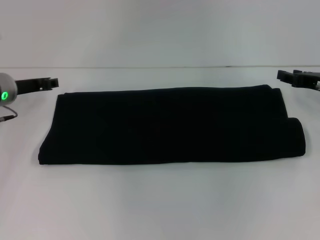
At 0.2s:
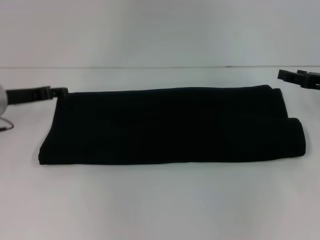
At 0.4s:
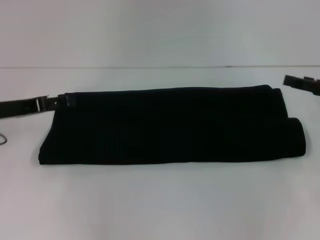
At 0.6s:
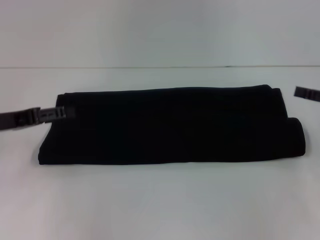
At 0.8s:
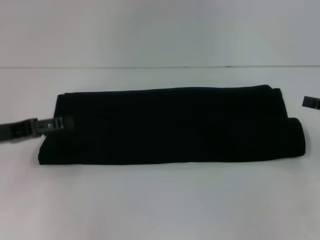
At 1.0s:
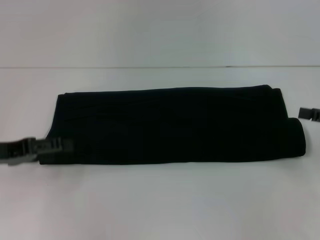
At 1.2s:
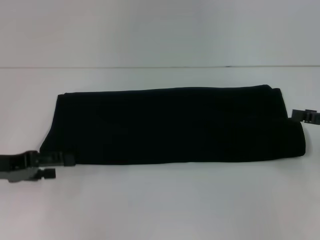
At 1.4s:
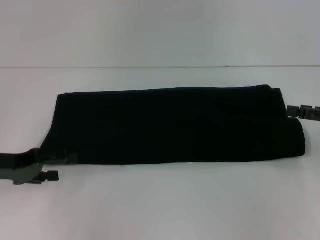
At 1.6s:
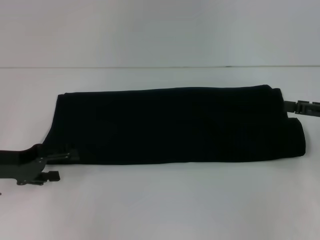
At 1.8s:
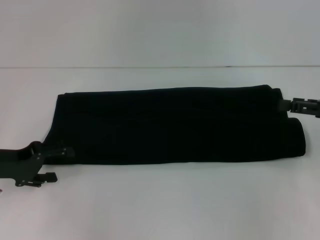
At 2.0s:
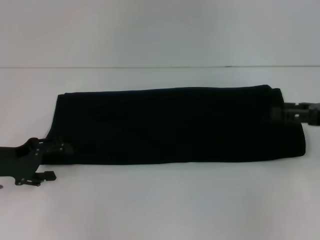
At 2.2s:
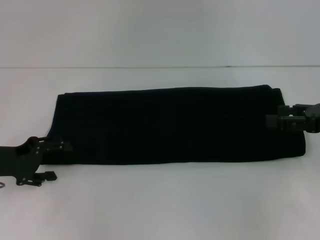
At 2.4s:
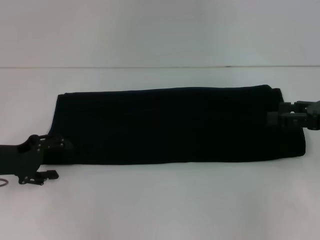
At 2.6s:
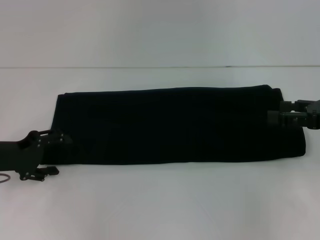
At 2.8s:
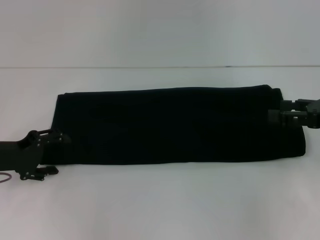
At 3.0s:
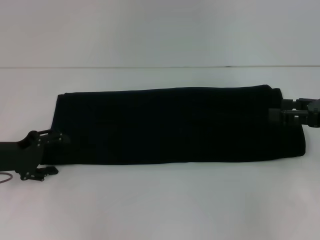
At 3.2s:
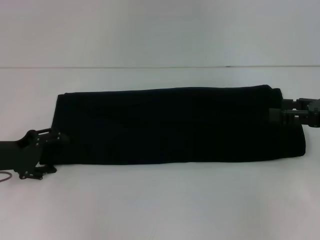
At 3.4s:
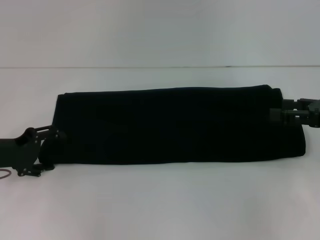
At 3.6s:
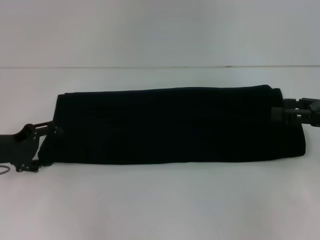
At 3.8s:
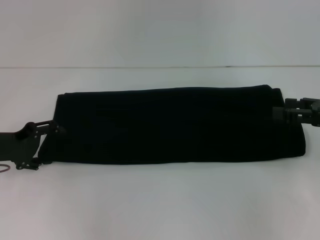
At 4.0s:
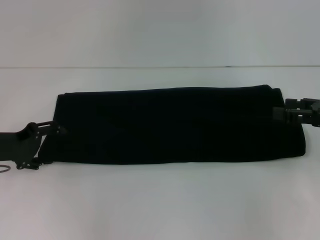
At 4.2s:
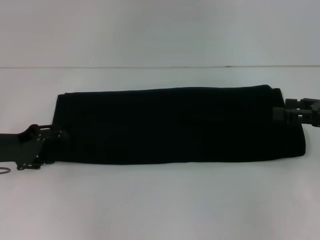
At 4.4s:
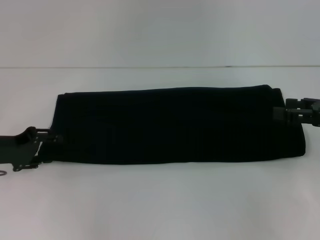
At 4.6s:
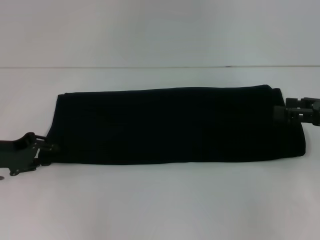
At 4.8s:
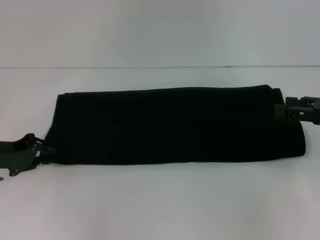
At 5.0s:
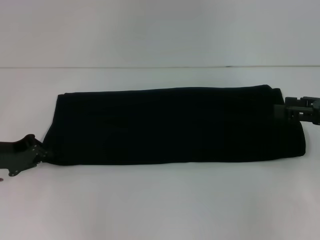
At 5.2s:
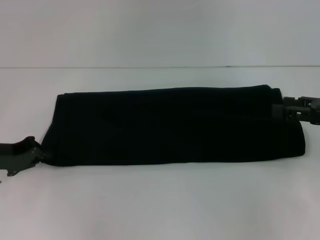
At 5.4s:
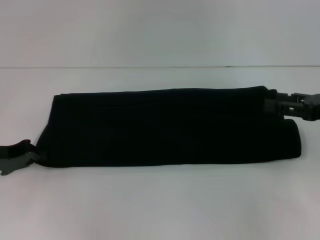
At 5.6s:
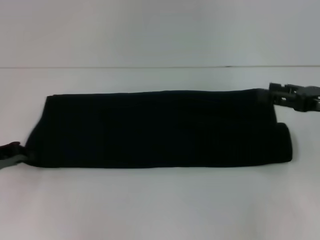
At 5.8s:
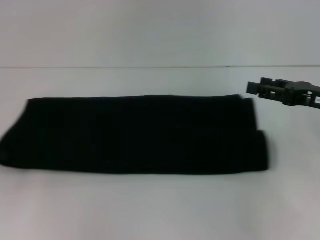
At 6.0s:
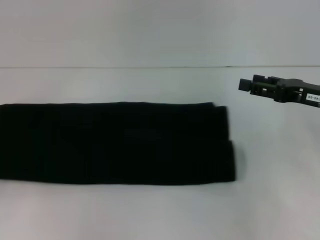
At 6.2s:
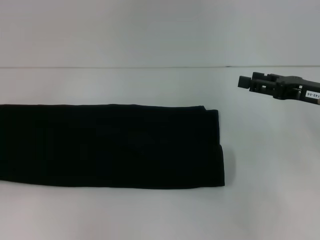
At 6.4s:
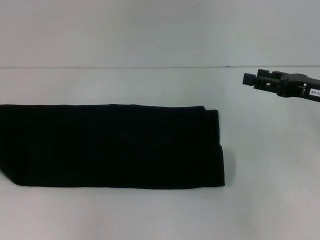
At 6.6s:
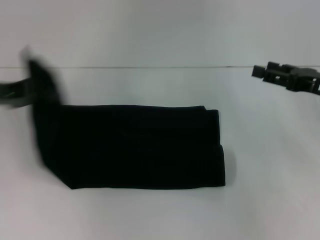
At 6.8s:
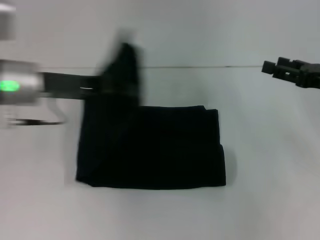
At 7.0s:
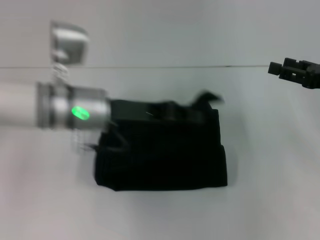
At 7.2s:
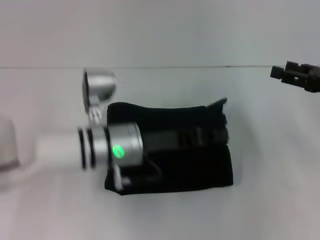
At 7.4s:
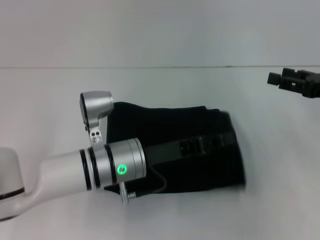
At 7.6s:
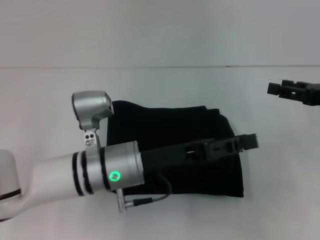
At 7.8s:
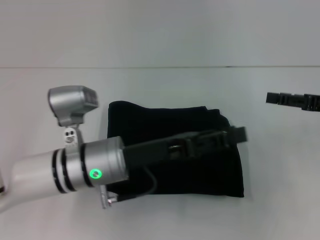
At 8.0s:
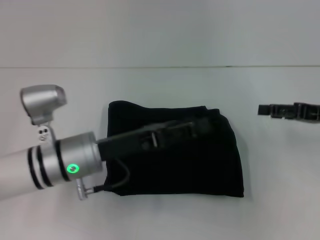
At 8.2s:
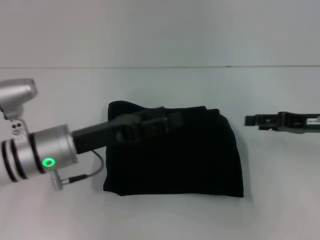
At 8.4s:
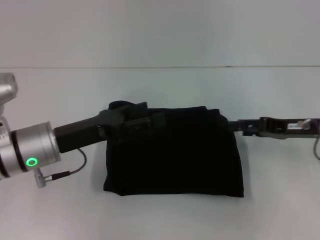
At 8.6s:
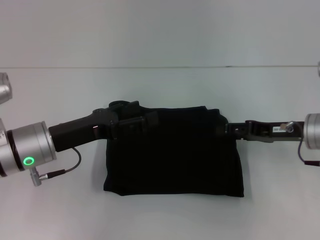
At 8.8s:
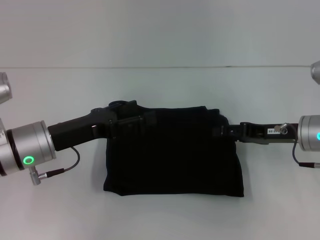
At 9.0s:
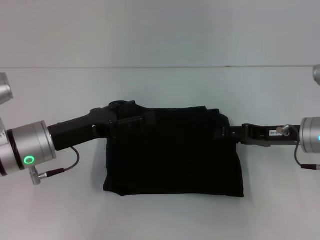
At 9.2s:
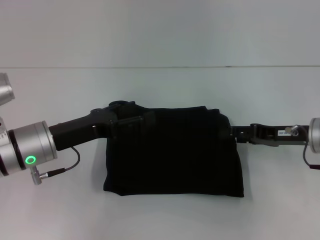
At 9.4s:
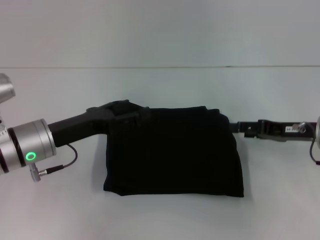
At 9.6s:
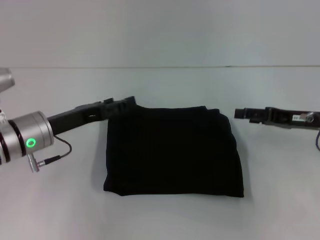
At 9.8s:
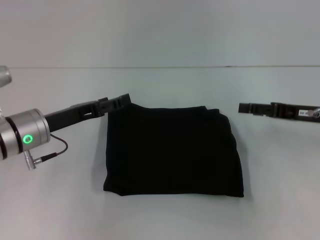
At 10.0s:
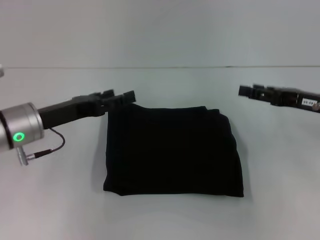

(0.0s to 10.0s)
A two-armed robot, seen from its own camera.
Step, 0.0s - 7.8s: Fold the clothes with your left hand.
0.0s - 1.4s: The right gripper moves backward, roughly 10 cm, and opens. Meanwhile the left gripper is displaced backward by approximately 15 cm, and opens its fingers.
2.8s - 4.2s: There are only small adjustments of the grippers.
4.2s - 5.8s: The left gripper travels to the left by some 5 cm, and closes.
5.8s - 7.2s: The left gripper is displaced to the right by approximately 30 cm.
7.2s - 8.6s: The right gripper is displaced to the left and downward by approximately 10 cm, while the left gripper heads to the left, covering roughly 10 cm, and opens.

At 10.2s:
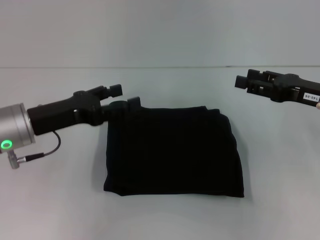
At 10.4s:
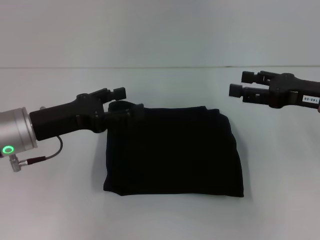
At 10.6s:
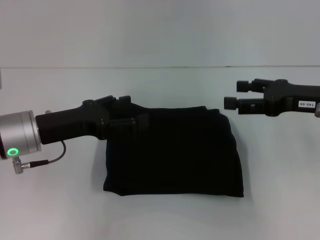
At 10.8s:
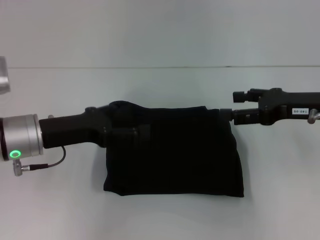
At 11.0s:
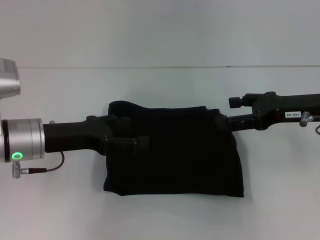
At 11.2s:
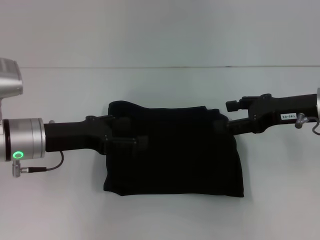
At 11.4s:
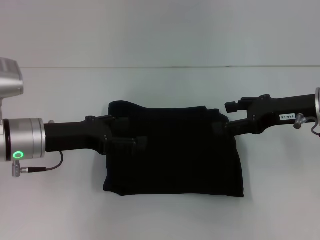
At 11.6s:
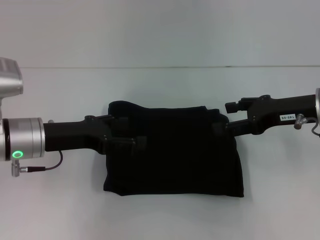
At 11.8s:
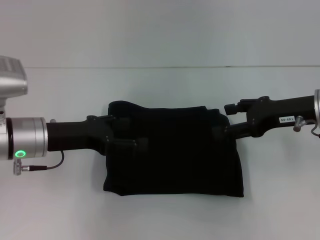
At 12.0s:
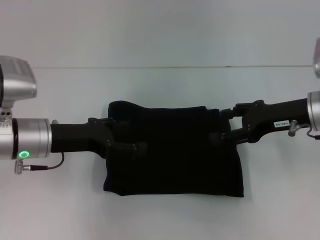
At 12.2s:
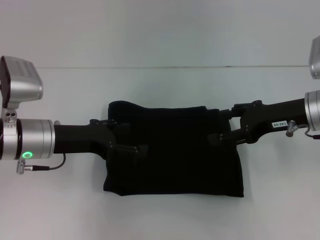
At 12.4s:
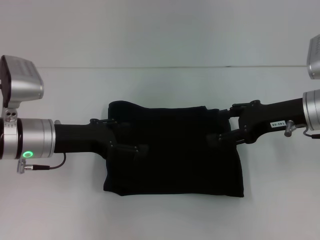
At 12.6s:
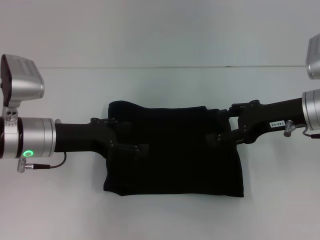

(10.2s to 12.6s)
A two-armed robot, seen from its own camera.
11.4s - 12.6s: The grippers move only a little.

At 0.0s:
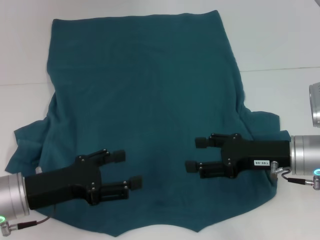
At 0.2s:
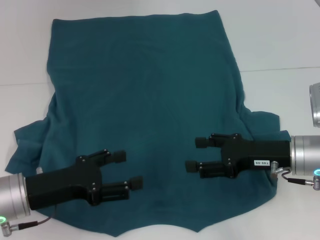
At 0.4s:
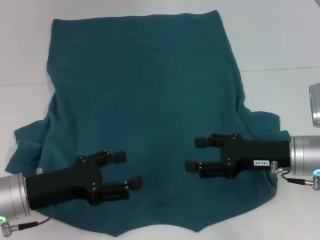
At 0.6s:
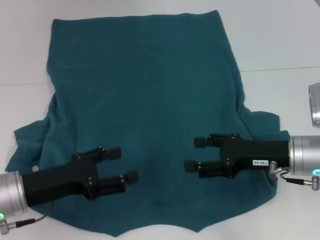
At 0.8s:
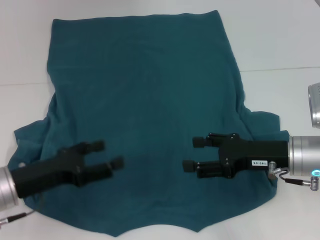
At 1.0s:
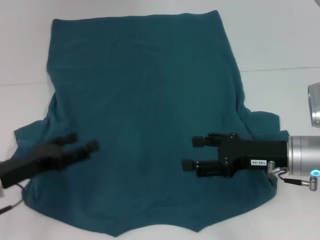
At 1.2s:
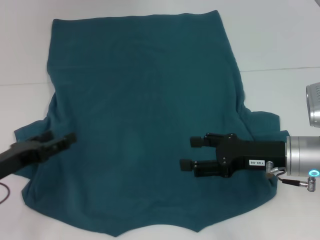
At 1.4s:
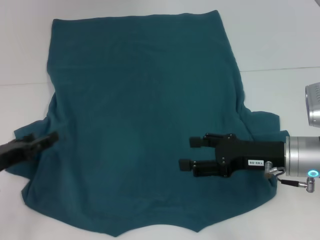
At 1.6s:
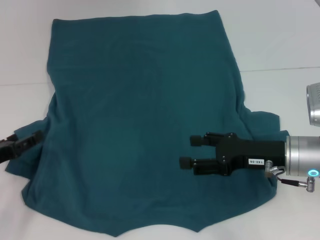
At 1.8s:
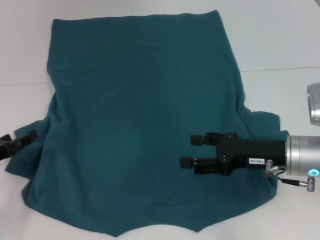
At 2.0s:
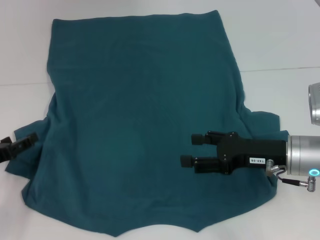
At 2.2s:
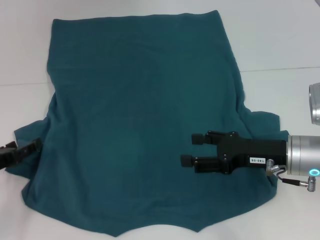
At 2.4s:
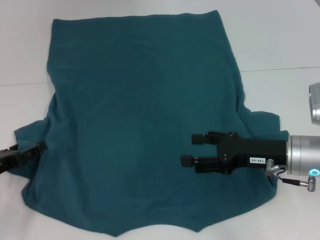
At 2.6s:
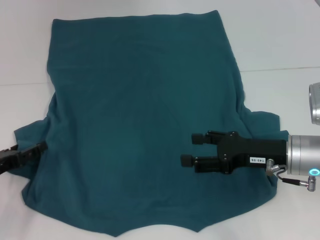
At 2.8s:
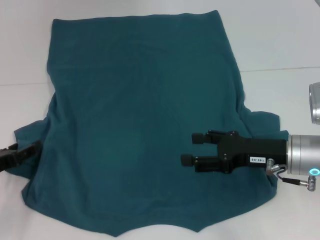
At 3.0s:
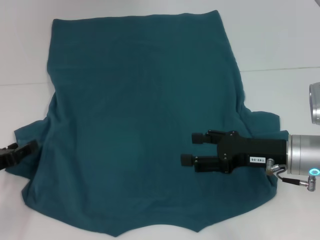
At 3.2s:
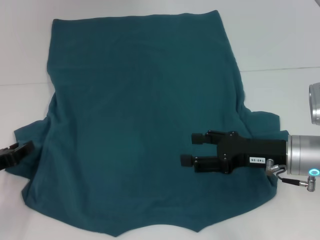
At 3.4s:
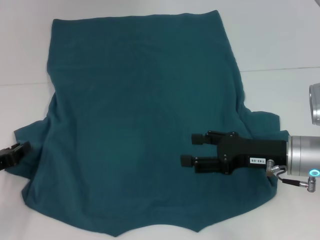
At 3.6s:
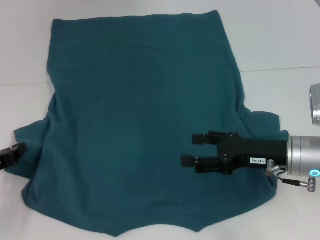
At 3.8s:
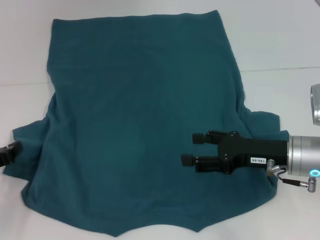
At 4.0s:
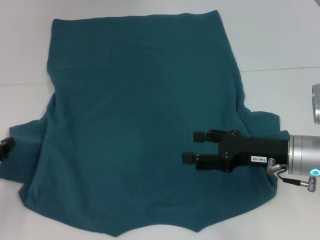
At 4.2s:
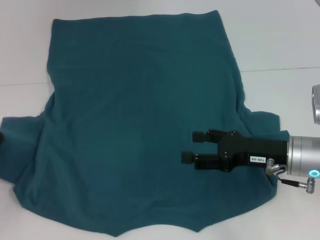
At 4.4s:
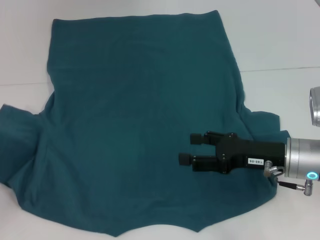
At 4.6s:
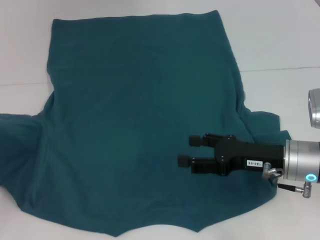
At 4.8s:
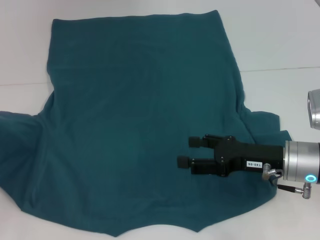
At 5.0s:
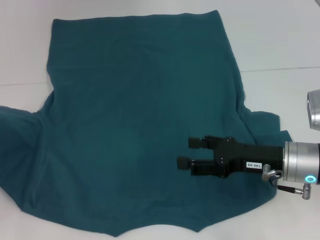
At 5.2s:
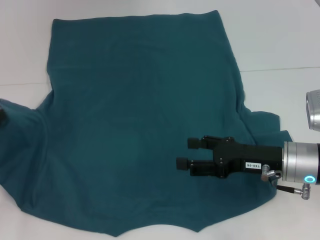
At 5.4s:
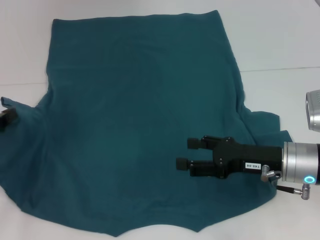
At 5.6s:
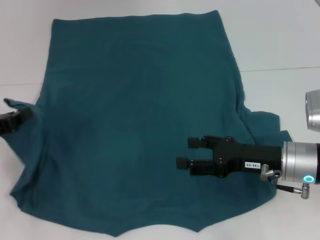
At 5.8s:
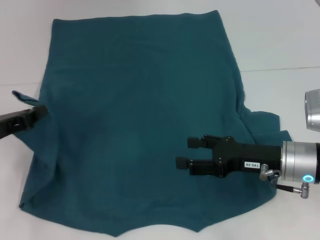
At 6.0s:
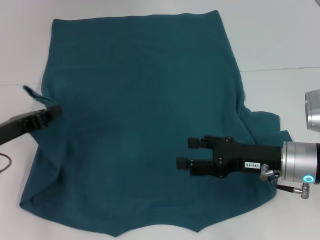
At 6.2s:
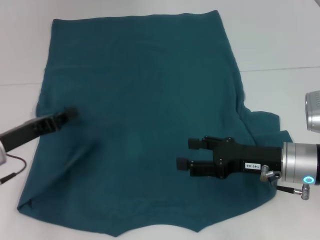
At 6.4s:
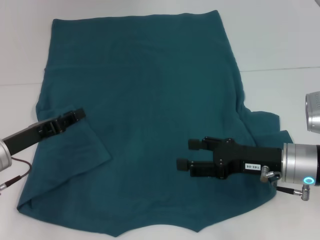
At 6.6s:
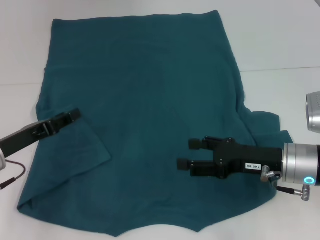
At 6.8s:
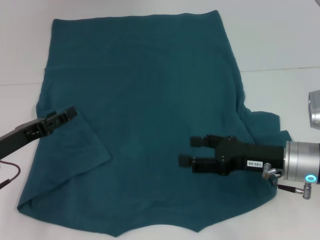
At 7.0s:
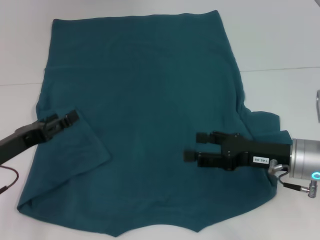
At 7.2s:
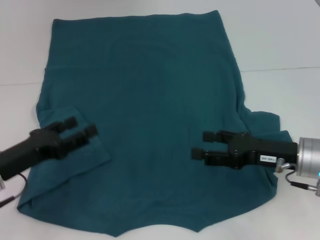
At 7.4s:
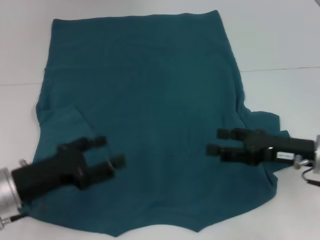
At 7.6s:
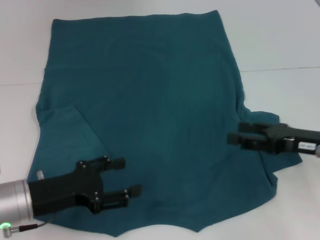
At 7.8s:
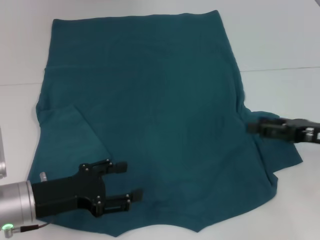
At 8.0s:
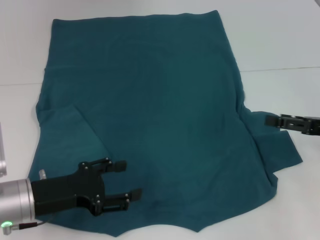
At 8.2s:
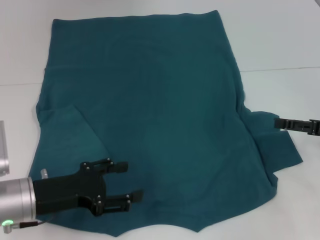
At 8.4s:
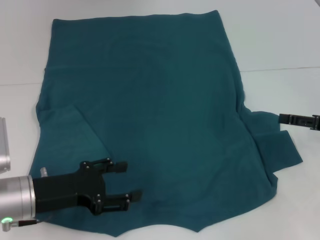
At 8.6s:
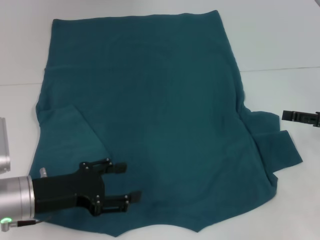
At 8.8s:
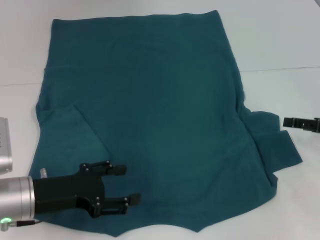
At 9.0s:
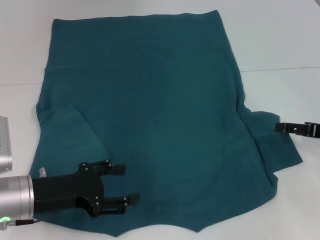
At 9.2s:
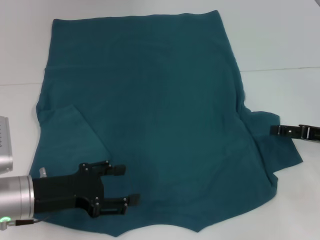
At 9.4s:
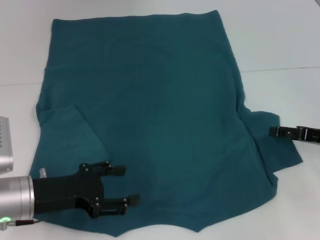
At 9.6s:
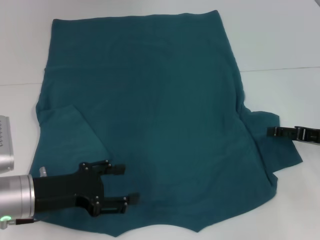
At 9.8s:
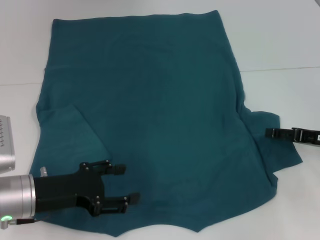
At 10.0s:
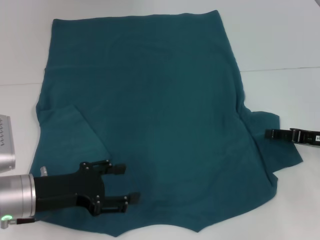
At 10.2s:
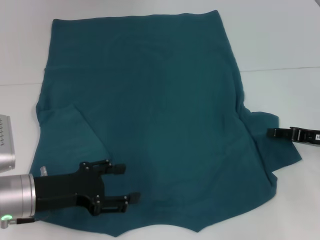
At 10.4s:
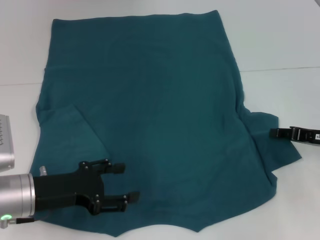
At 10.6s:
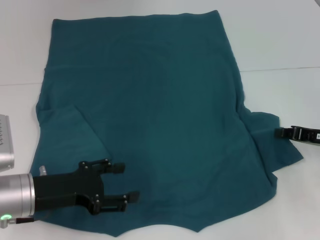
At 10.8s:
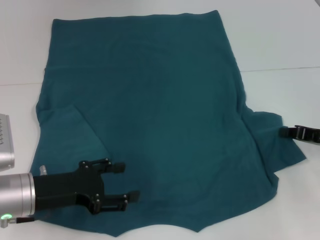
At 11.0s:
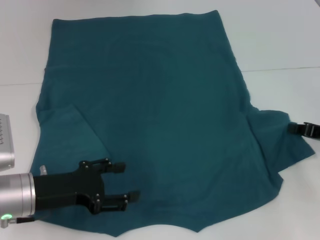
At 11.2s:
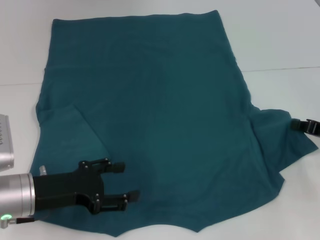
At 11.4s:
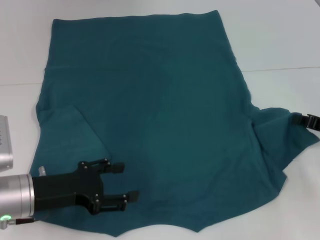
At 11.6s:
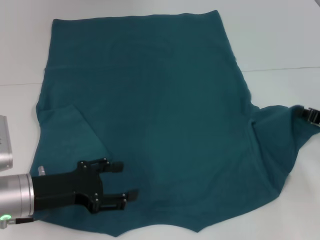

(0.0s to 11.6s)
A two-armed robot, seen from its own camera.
Step, 0.0s - 6.8s: Fold the bottom left sleeve with your left hand.
0.0s - 1.4s: The left gripper heads to the left, covering approximately 10 cm.
1.4s - 2.8s: The grippers stay close to where they were, moving slightly.
2.8s - 4.4s: The left gripper closes up.
4.4s - 5.8s: The left gripper shifts about 5 cm to the right.
5.8s - 7.2s: The left gripper moves about 5 cm, and opens.
7.2s - 8.8s: The right gripper shifts some 10 cm to the right.
8.8s - 10.2s: There are only small adjustments of the grippers.
10.2s - 11.6s: The right gripper closes its fingers.
